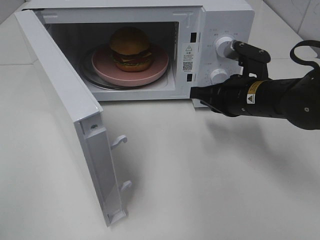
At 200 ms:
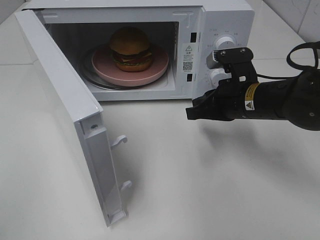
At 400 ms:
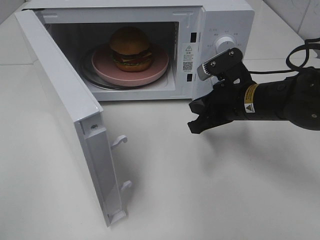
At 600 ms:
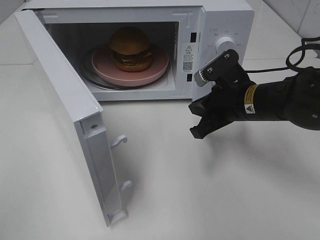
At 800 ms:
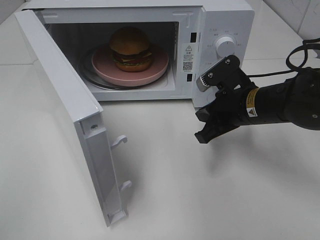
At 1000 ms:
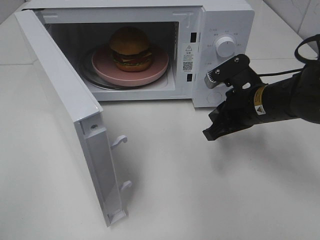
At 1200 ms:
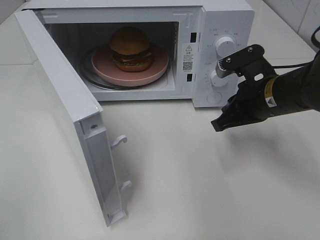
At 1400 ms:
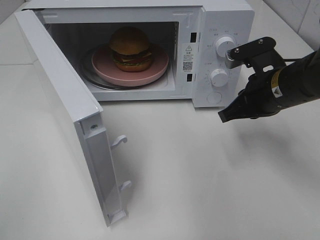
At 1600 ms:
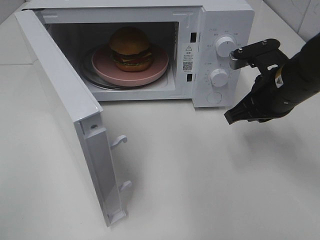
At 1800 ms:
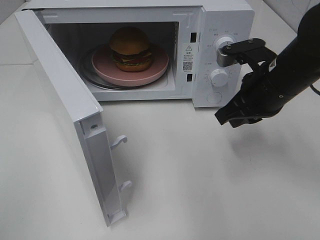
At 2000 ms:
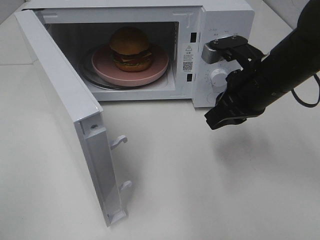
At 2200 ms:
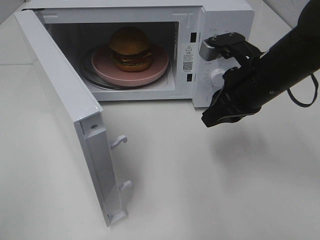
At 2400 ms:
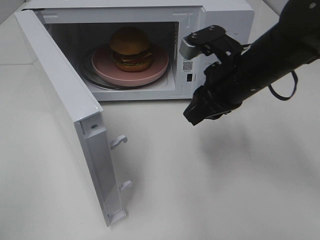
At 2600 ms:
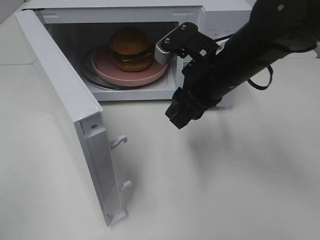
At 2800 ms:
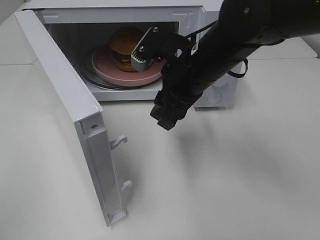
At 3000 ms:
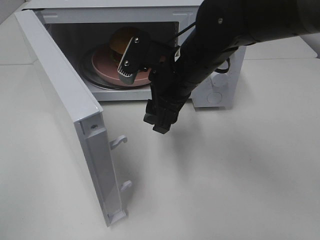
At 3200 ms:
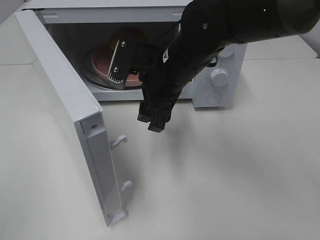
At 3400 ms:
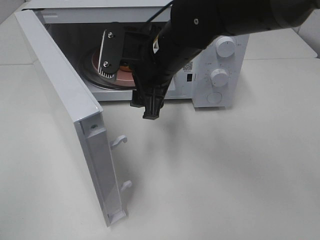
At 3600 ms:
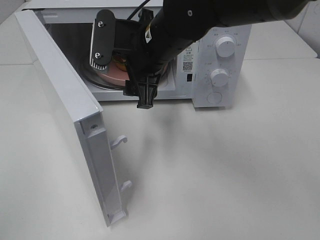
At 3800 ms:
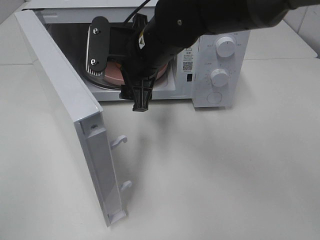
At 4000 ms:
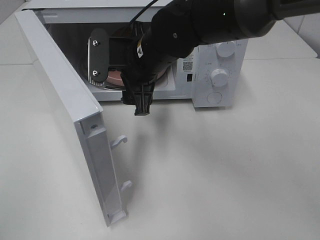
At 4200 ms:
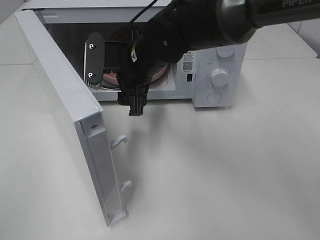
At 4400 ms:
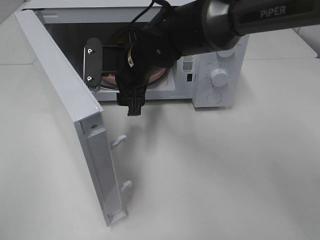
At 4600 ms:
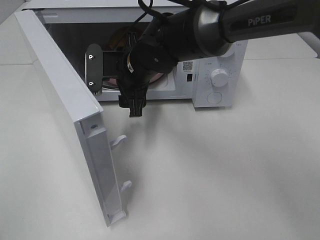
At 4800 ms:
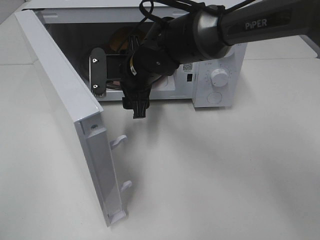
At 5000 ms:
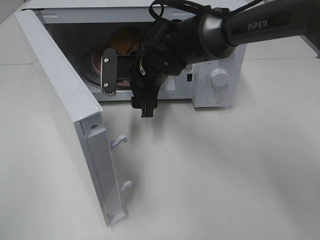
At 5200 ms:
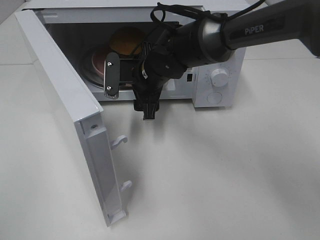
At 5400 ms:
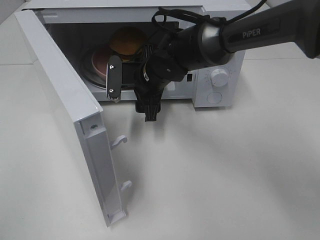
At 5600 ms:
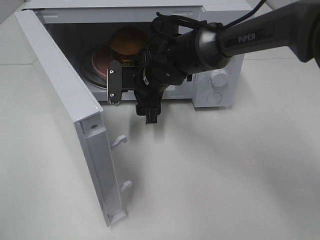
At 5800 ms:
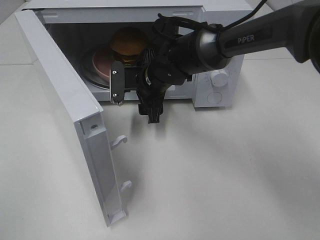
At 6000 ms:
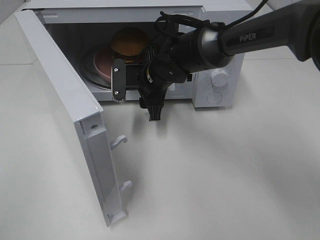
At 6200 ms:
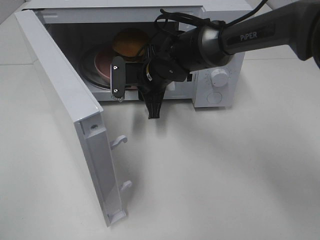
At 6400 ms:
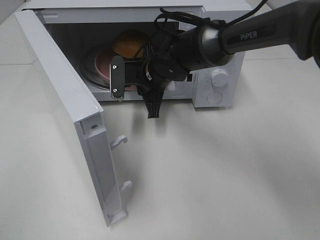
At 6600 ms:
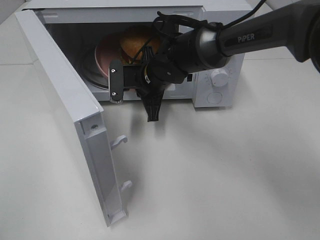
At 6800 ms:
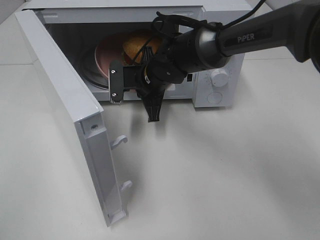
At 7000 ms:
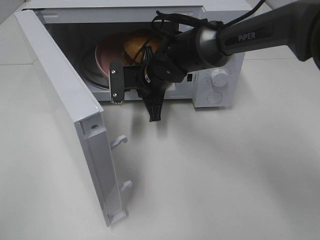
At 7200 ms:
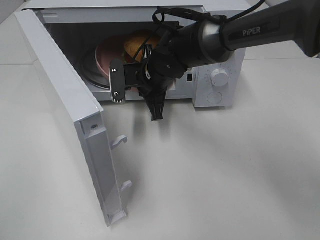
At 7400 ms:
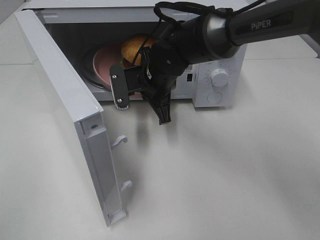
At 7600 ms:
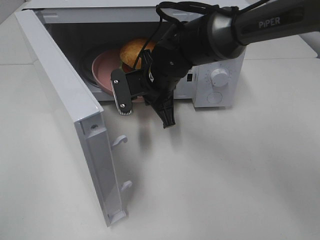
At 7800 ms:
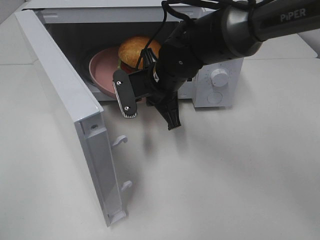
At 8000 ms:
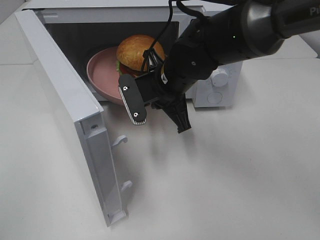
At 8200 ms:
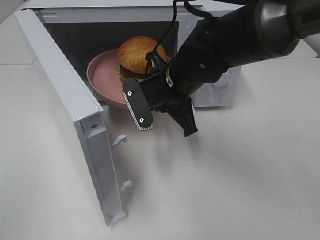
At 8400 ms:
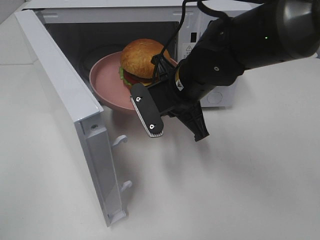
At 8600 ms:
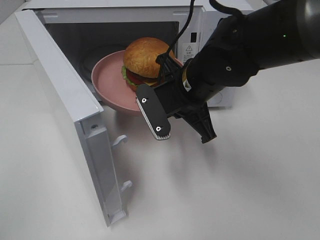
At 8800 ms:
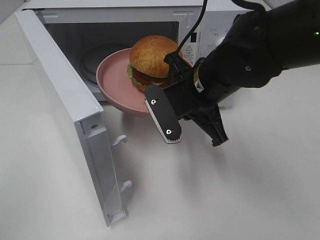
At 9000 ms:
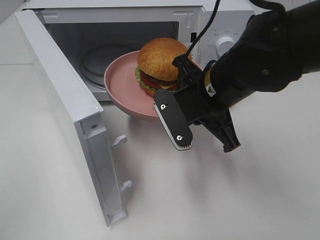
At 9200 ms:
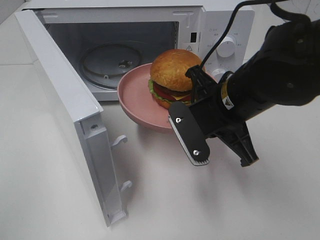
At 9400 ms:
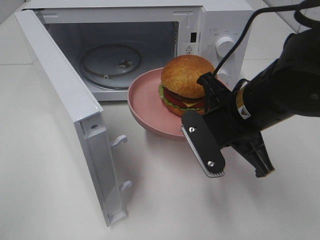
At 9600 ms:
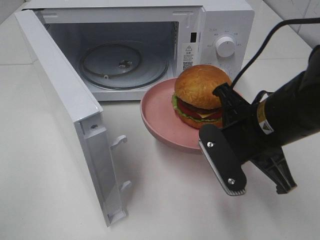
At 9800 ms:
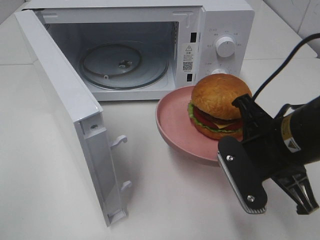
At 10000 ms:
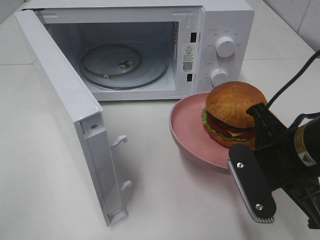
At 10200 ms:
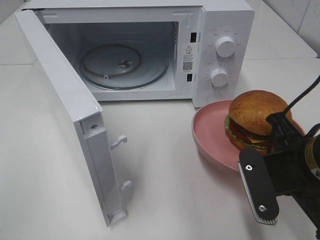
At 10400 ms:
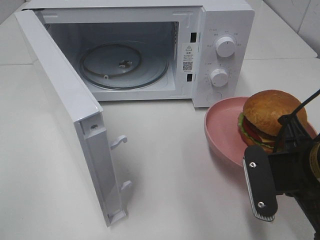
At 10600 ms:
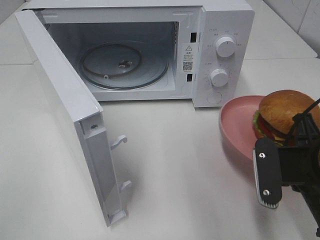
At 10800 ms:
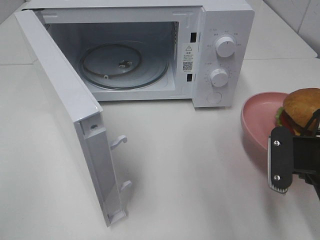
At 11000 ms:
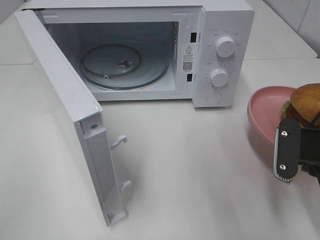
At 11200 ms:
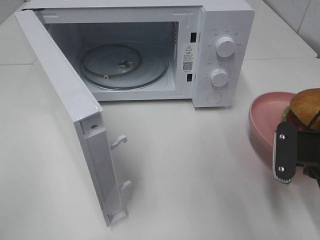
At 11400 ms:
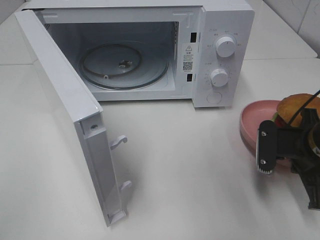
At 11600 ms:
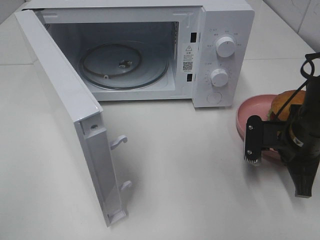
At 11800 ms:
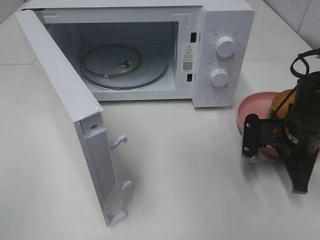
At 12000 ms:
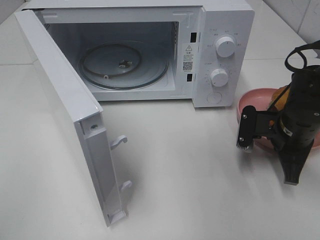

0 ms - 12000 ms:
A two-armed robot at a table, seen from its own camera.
Task of the whole recording: Heat the burger.
Step, 0 ms - 6200 ms: Right hand: grab the plate with the hamburger.
0 ms - 1600 ms: The right gripper shifts by roughly 5 cm.
1600 ms - 3000 ms: The right gripper heads to the left, covering about 15 cm, and opens.
3000 ms - 4400 ms: The right gripper is displaced to the left by roughly 5 cm.
4400 ms - 6000 ms: The right gripper heads downward, covering about 5 cm.
6000 ms - 7600 ms: The right gripper closes.
7600 ms - 9000 ms: The right gripper travels backward and to the right by roughly 15 cm.
9000 ms - 10400 ms: The right gripper travels to the right and backward by approximately 15 cm.
10400 ms - 12000 ms: The right gripper is displaced forward and downward by about 15 cm.

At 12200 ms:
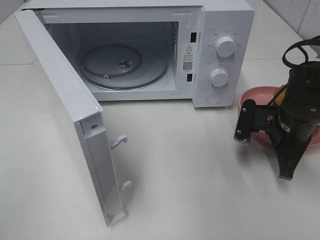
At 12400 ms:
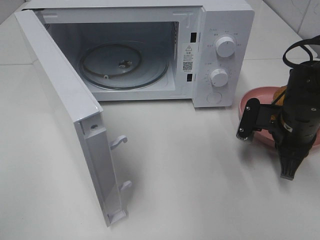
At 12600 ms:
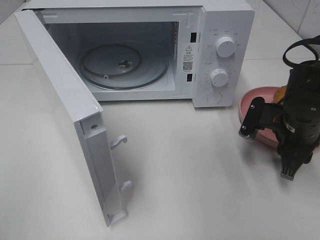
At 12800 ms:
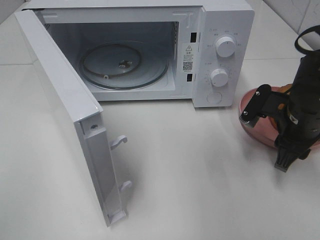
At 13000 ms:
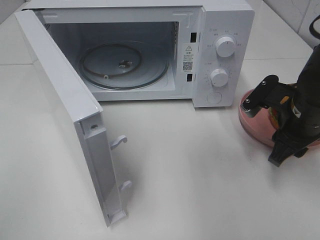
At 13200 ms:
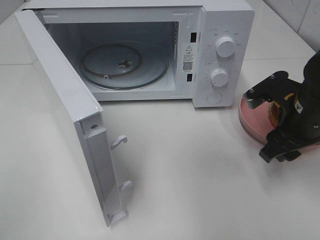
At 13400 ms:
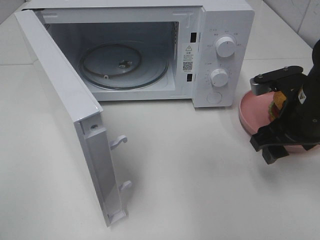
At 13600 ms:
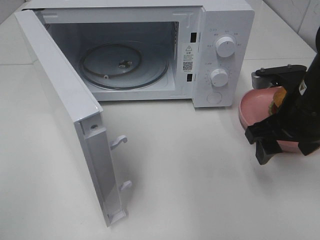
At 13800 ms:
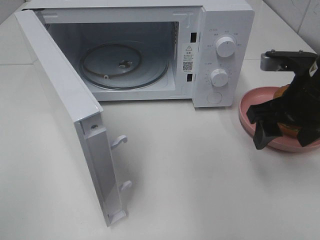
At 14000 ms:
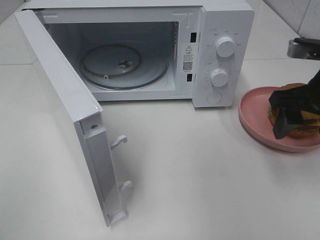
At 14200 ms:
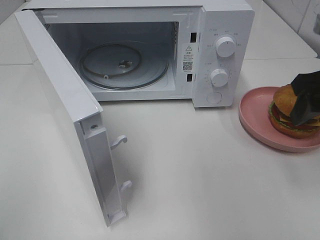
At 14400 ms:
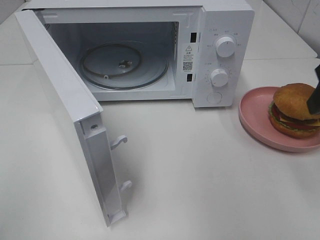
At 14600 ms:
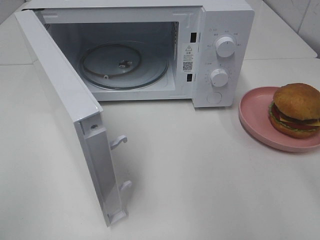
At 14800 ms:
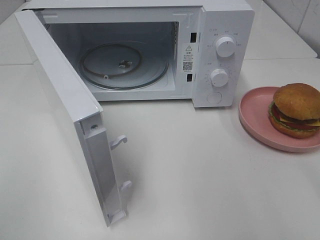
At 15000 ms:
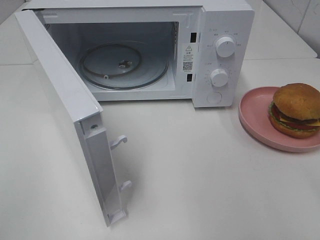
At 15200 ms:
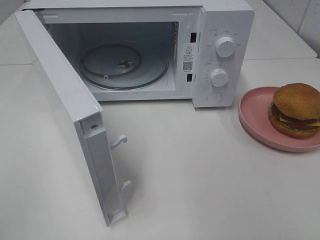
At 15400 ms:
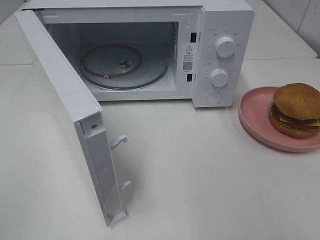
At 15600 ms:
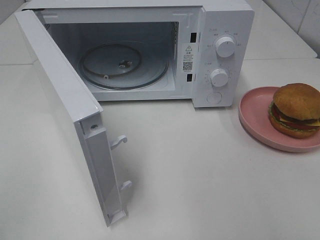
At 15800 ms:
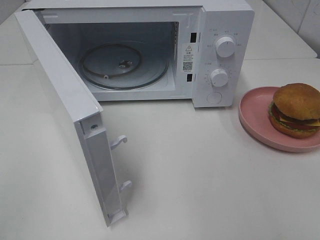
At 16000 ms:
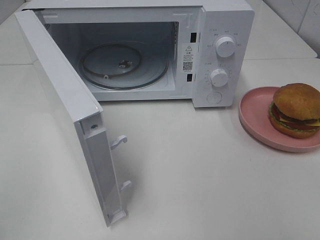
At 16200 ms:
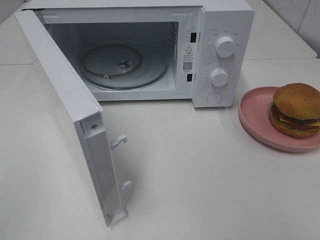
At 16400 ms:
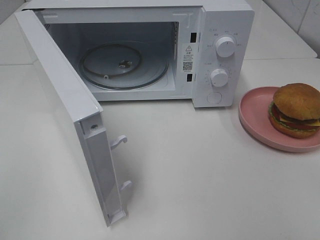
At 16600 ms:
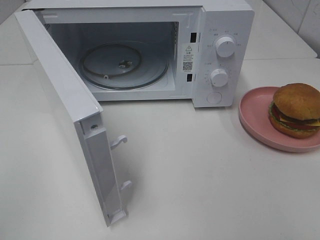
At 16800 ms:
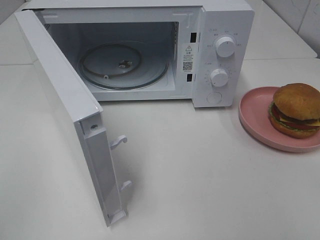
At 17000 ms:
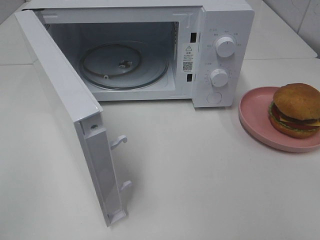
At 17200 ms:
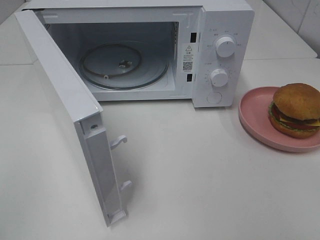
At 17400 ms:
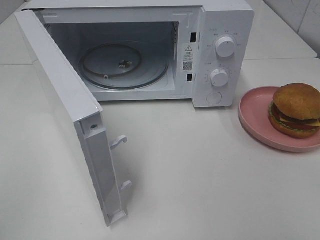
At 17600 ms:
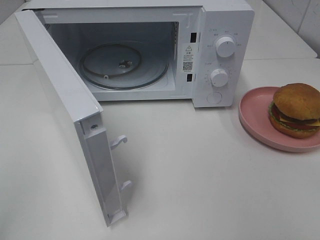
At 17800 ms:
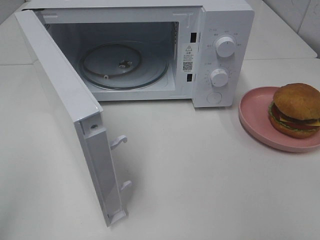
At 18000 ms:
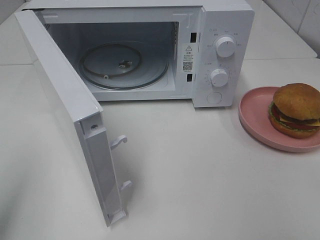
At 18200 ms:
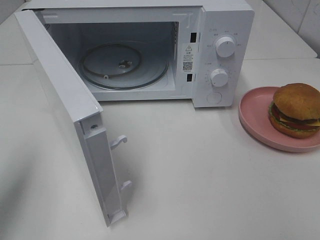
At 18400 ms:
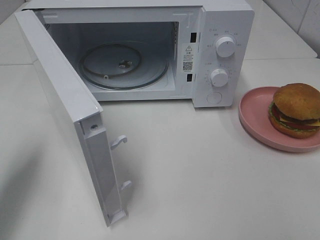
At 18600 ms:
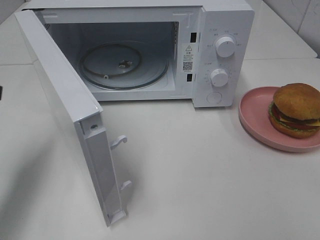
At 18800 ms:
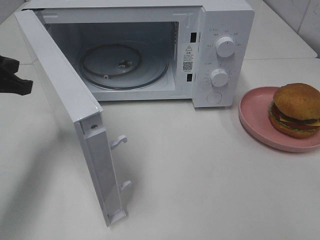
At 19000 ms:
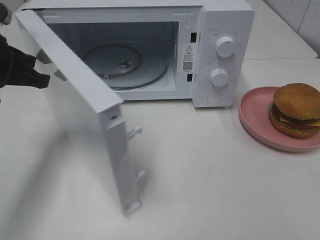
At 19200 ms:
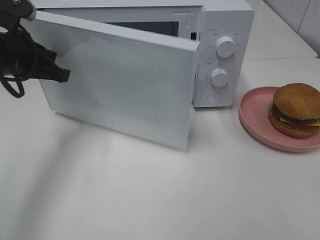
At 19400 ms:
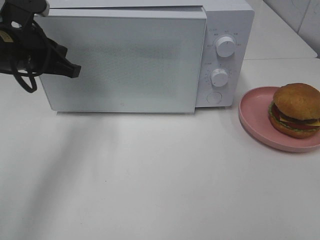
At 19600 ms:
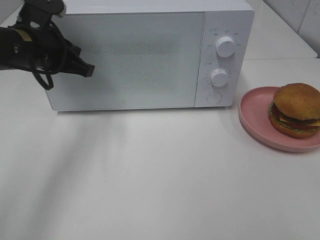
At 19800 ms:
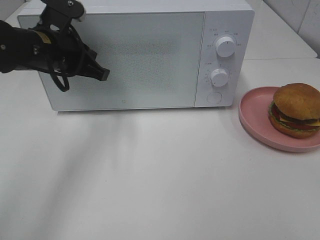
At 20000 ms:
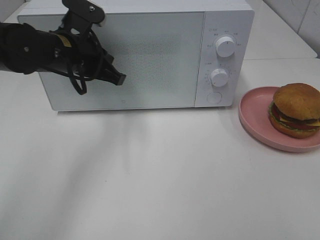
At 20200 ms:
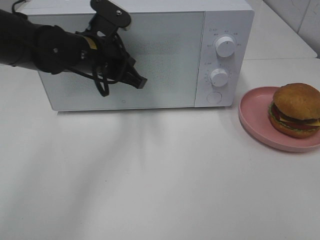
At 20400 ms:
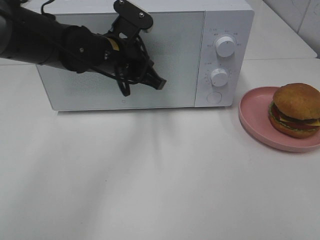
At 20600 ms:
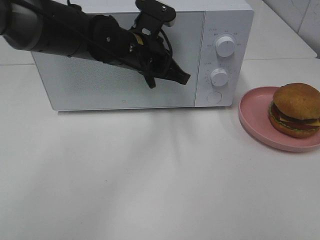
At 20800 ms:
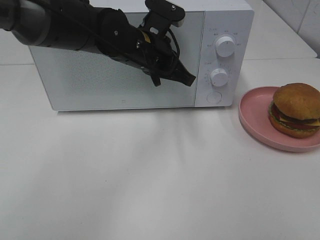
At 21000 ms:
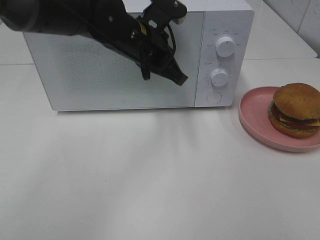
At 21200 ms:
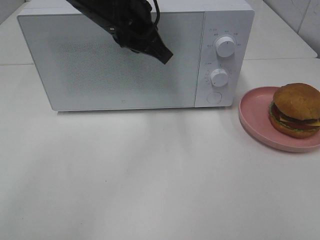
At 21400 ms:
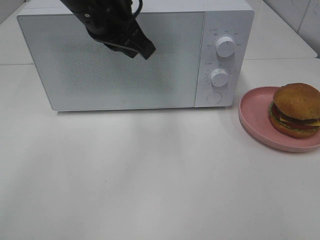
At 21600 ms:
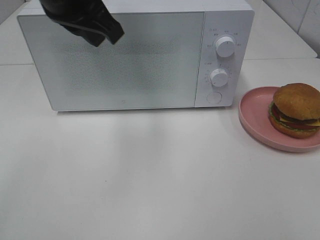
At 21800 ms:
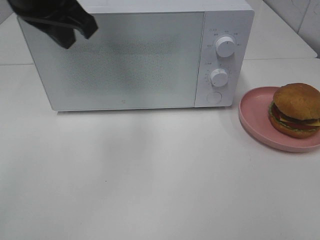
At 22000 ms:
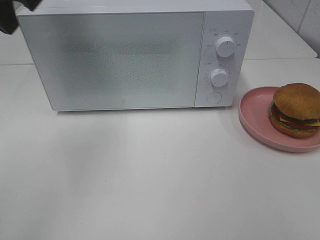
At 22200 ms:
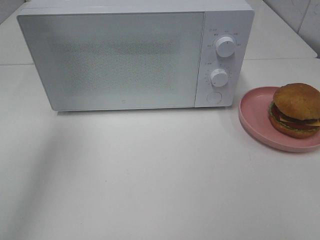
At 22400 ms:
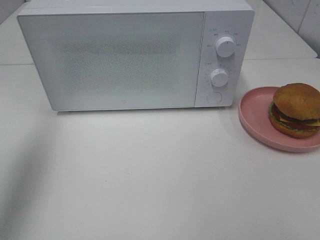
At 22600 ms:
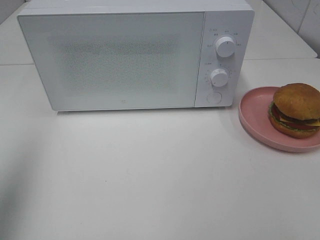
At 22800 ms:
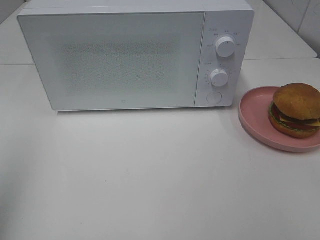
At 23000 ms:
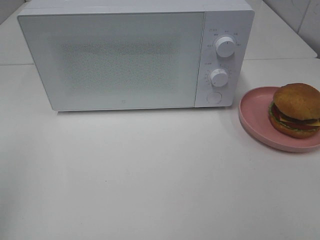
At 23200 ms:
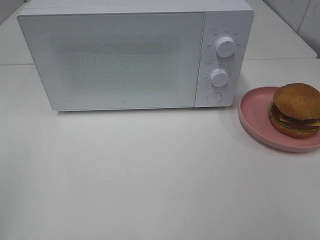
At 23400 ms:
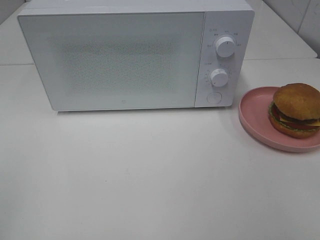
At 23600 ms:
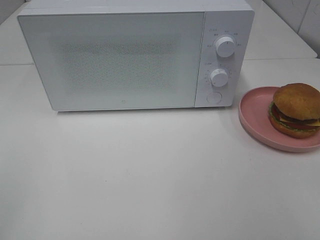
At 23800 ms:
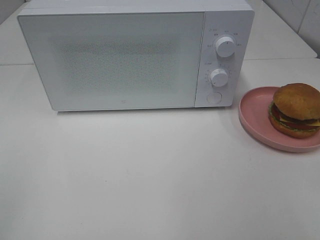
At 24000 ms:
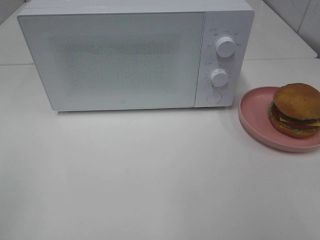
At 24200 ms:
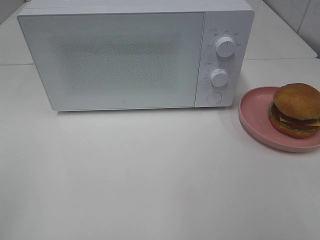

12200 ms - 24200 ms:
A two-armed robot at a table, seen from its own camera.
Task of the whole recording: Heat the burger.
Step, 12600 ms - 20400 ms: Left hand: close the microwave door.
12200 ms - 13800 ms: The right gripper travels upward by approximately 10 cm, and opens up.
13800 ms - 15200 ms: The right gripper shifts approximately 20 cm backward and upward.
16600 ms - 18200 ms: The left gripper heads forward, covering approximately 15 cm.
18200 ms - 19800 ms: The left gripper moves forward, to the right and downward, approximately 25 cm.
19800 ms - 21200 ms: The left gripper is displaced to the right and upward by roughly 15 cm, and closes its fingers.
21200 ms - 22600 ms: The left gripper shifts roughly 35 cm to the left and backward.
22600 ms - 24200 ms: The left gripper is displaced backward and downward by roughly 20 cm.
